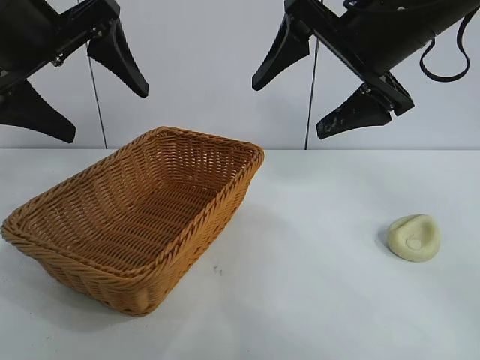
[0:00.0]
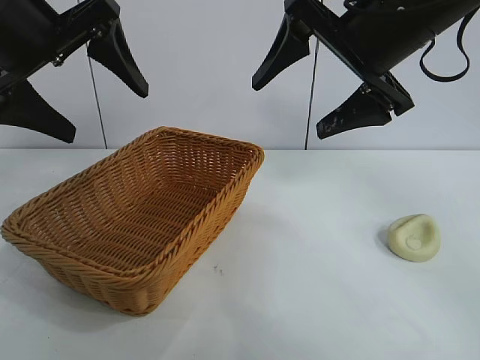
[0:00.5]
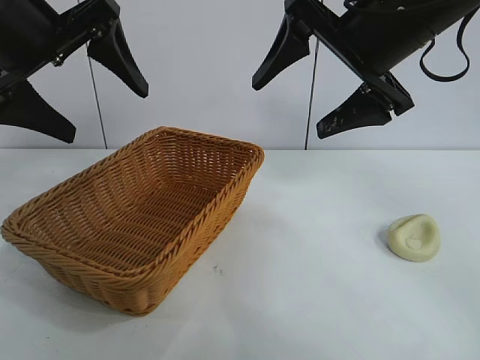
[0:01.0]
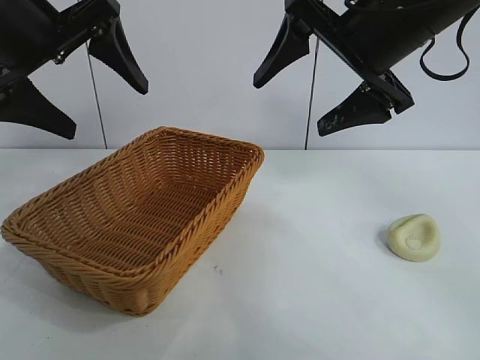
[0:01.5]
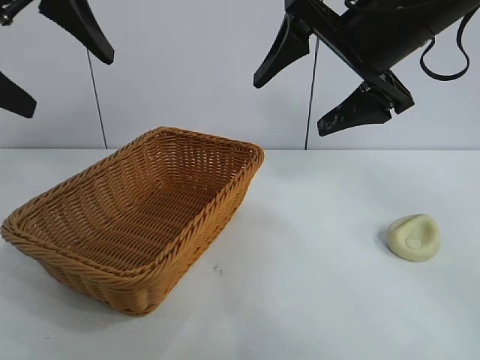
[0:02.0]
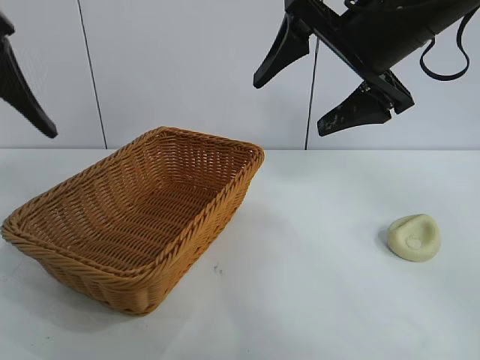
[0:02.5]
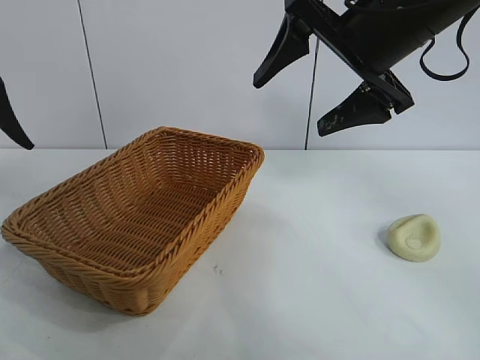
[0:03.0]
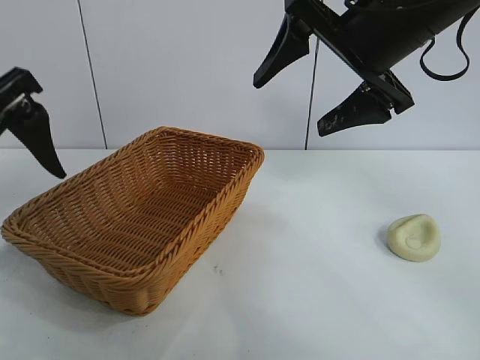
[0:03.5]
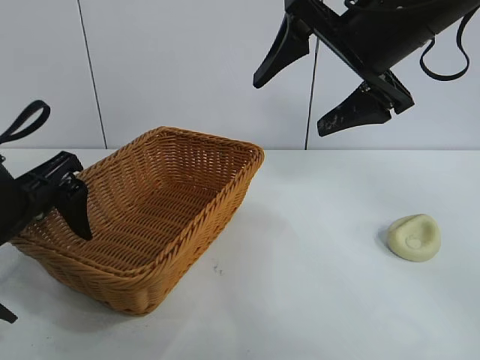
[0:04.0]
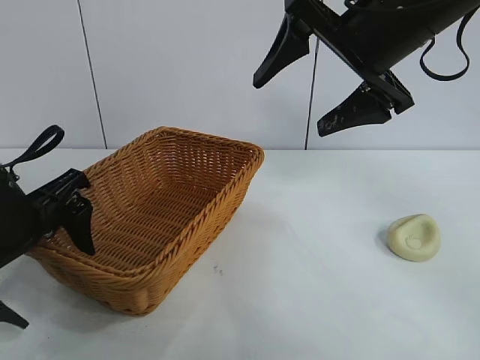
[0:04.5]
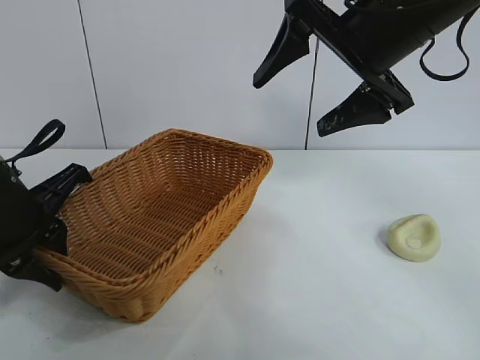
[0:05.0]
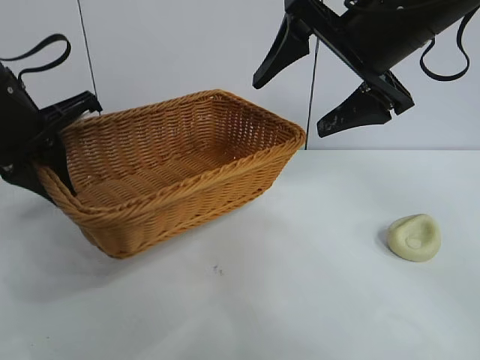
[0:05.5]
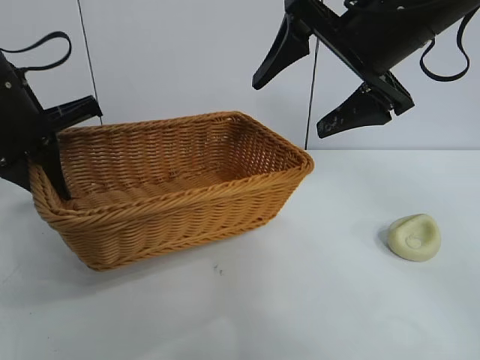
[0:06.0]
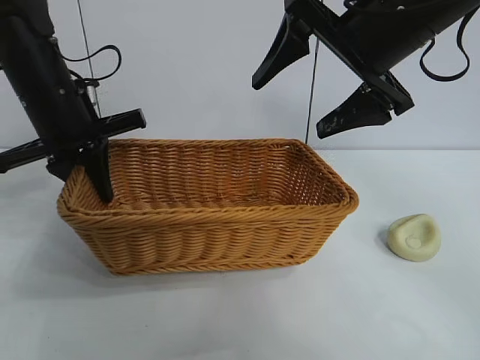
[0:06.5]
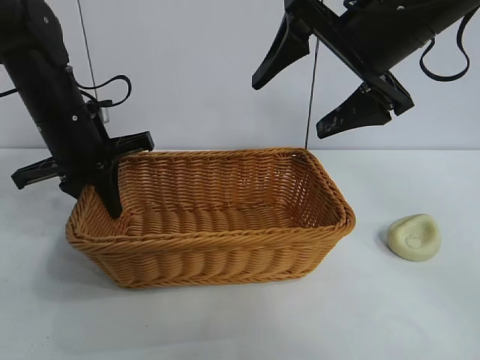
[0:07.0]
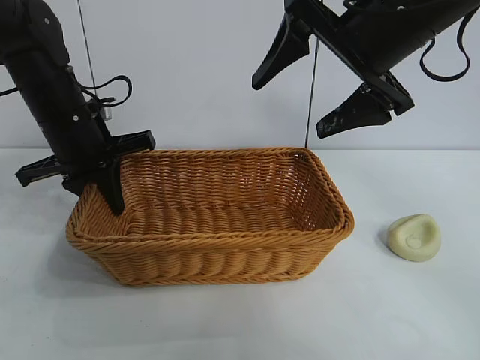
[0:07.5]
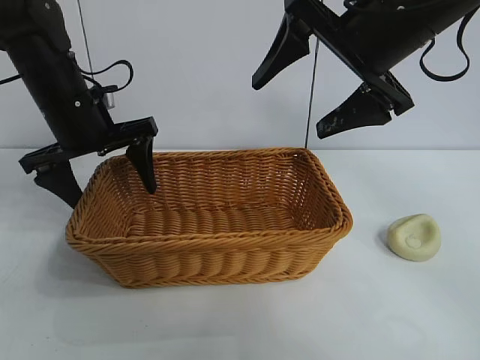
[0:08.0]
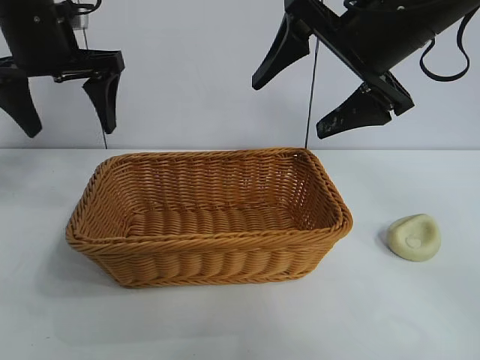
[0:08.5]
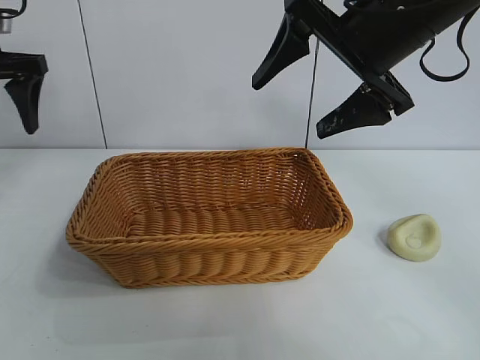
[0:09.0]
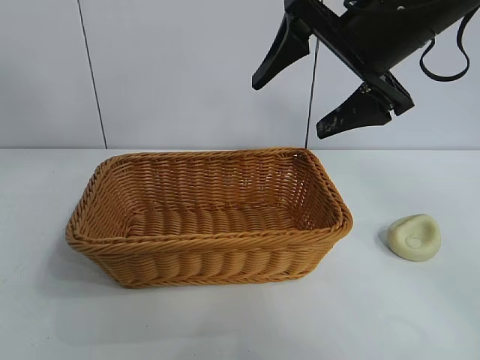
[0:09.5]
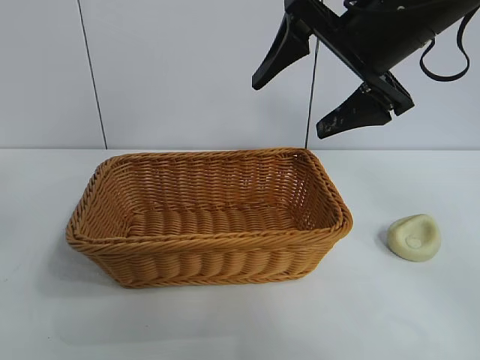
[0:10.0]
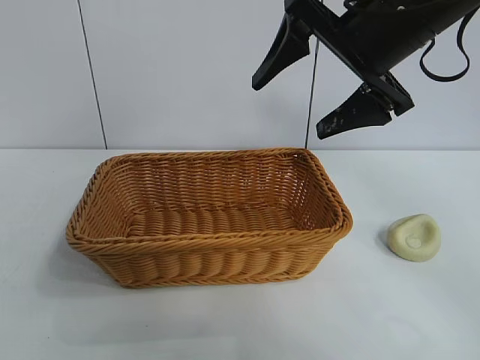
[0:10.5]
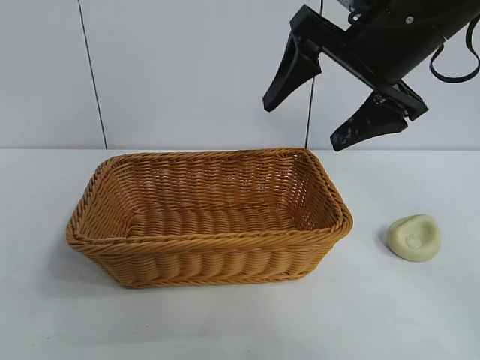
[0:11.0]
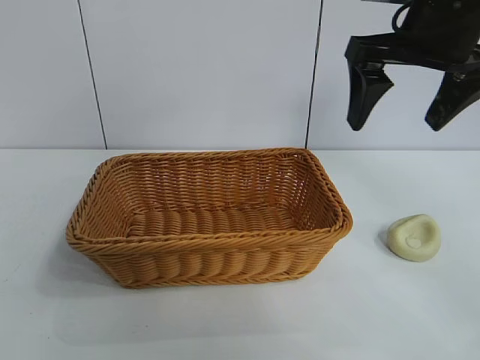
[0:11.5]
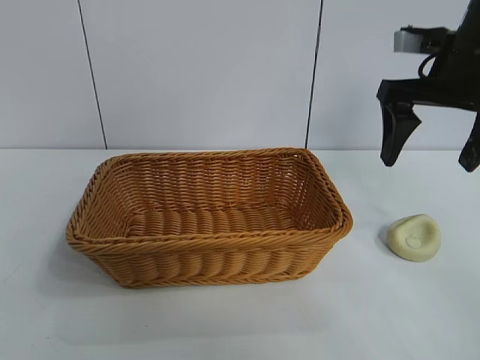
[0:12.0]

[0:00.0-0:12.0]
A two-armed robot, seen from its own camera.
Task of the whole recording: pick up the egg yolk pastry and put it into the basket.
Step, 0:01.5 to 0:04.5: Grasp the basket with left gripper.
Step, 0:05.5 to 0:08.0: Place the basket in the center of view with left gripper.

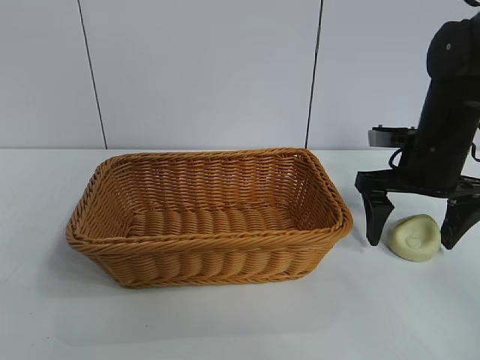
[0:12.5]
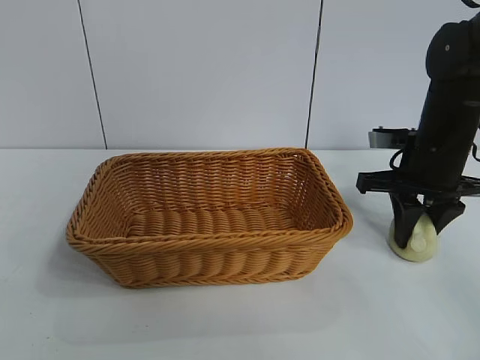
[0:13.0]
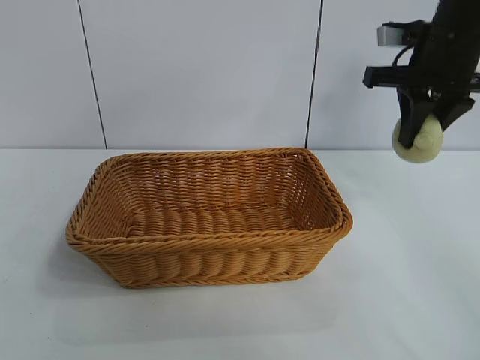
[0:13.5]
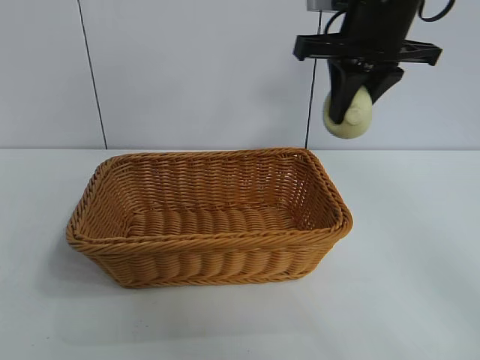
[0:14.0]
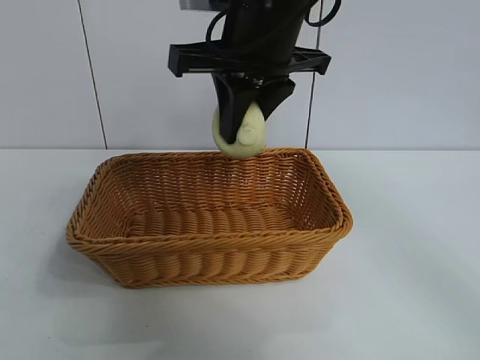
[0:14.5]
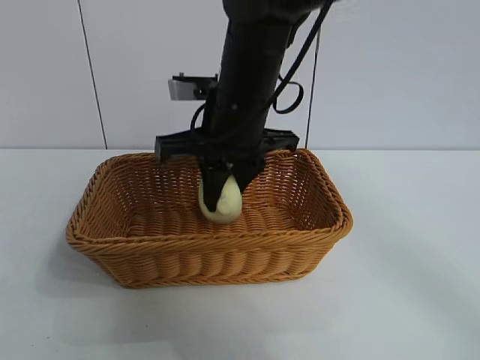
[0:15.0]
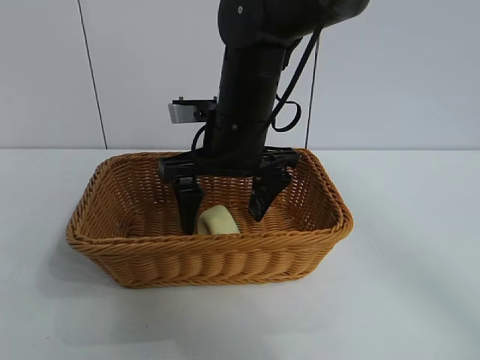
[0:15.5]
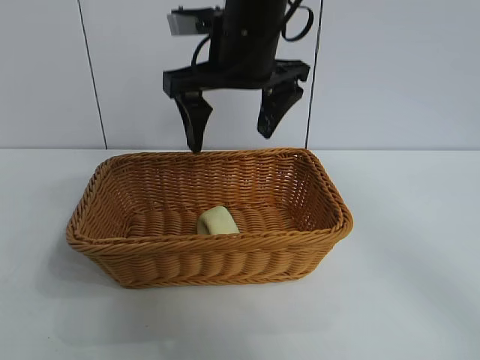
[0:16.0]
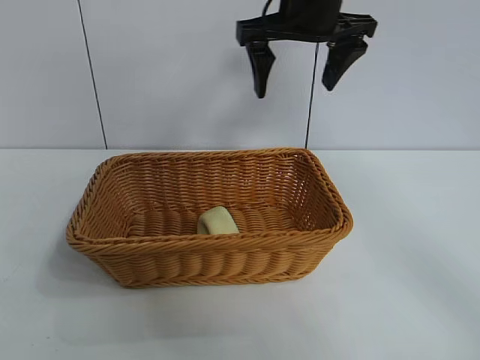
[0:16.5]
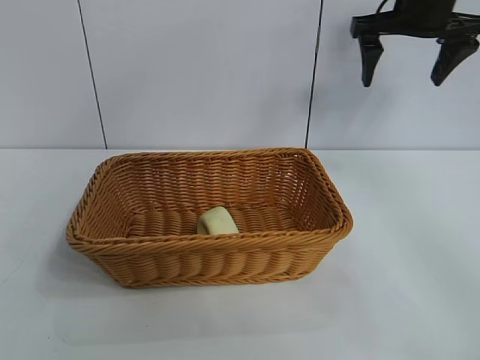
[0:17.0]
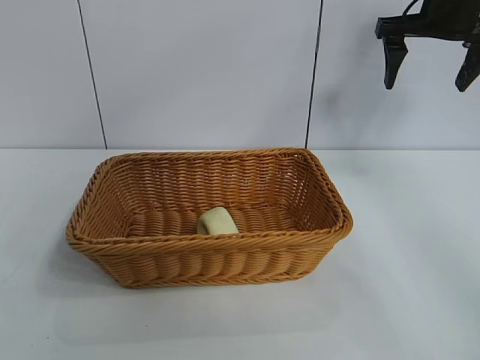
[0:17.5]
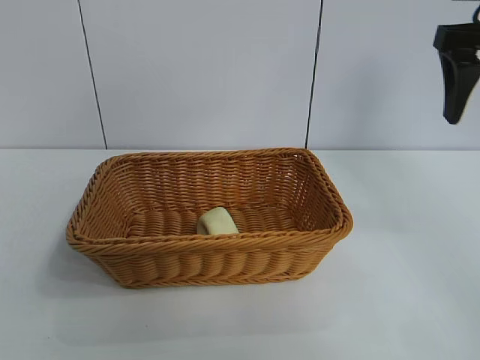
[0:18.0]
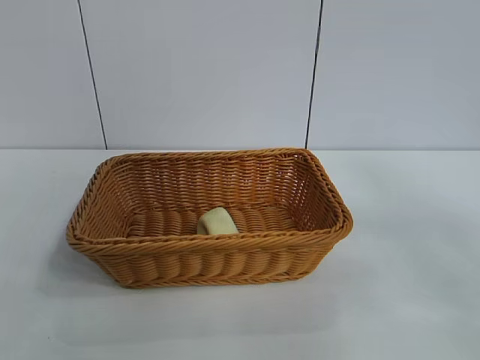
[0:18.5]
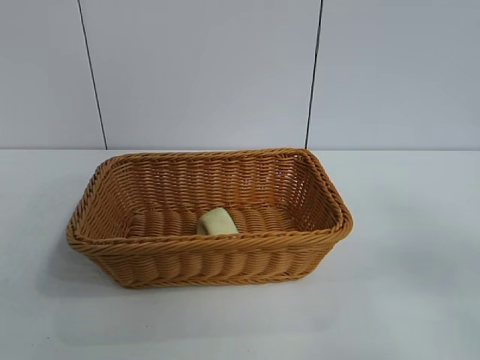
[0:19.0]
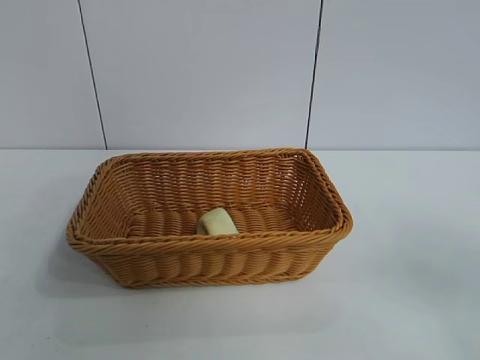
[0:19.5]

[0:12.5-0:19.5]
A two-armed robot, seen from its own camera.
Task of the whole recording: pick up the egg yolk pastry and put it into the basket.
Step, 0:13.5 to 0:15.5: Place the egg yolk pastry in the basket with right gripper.
